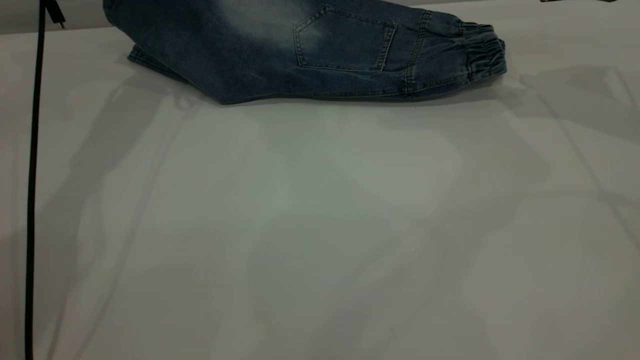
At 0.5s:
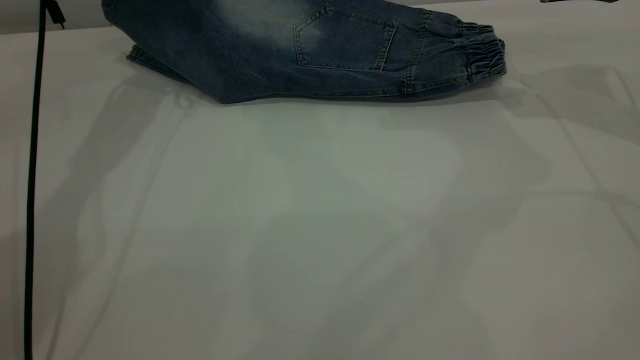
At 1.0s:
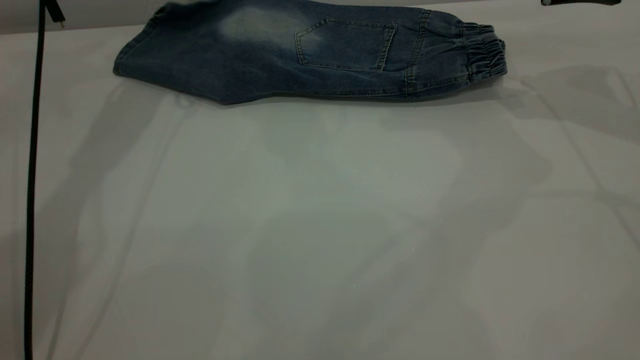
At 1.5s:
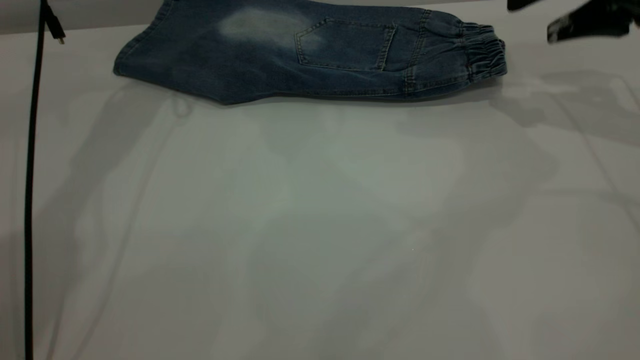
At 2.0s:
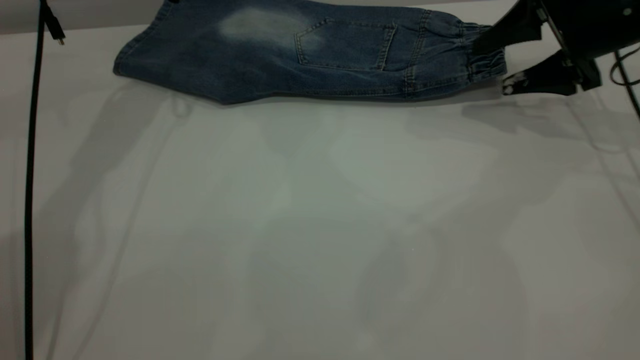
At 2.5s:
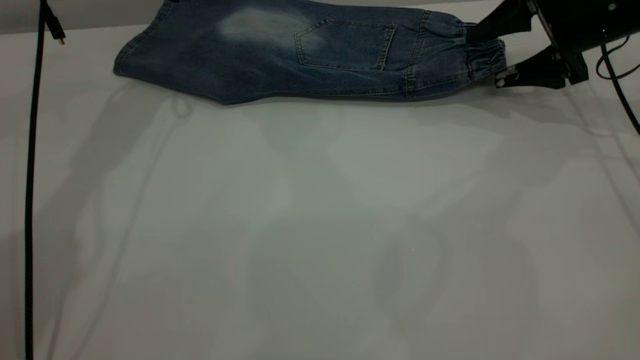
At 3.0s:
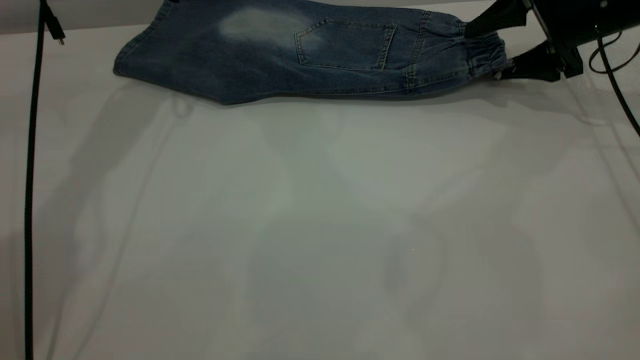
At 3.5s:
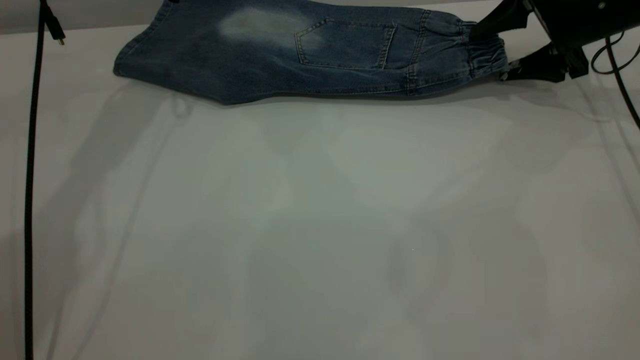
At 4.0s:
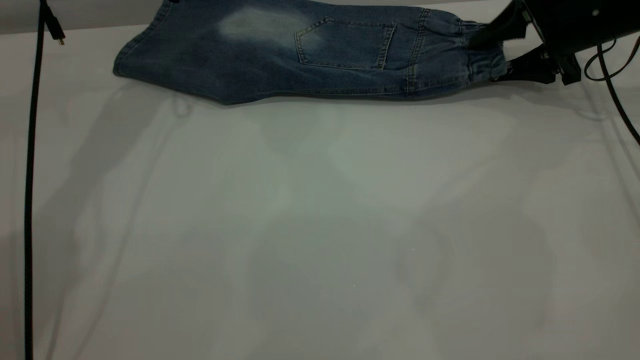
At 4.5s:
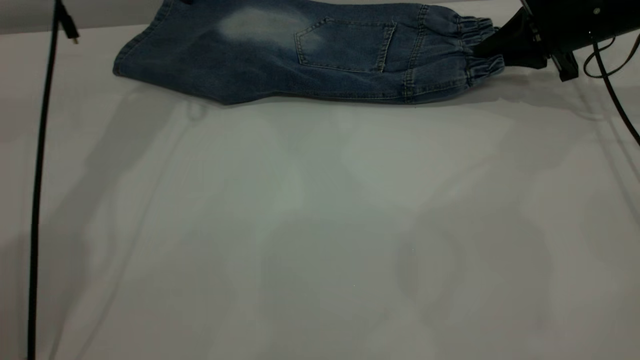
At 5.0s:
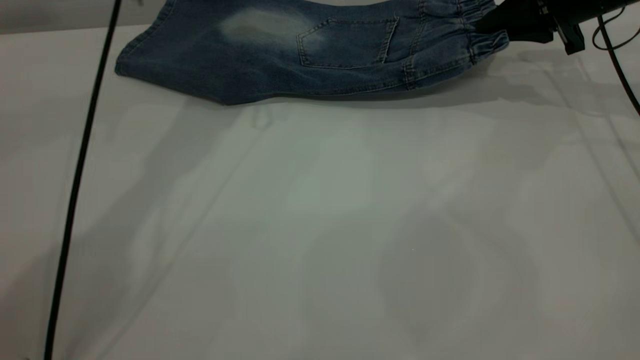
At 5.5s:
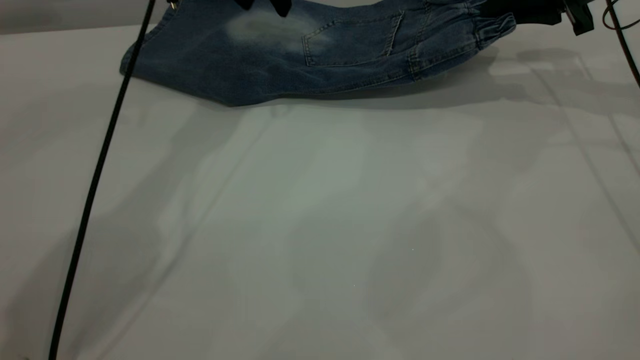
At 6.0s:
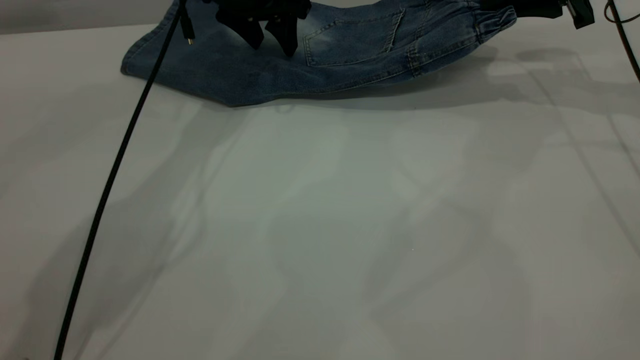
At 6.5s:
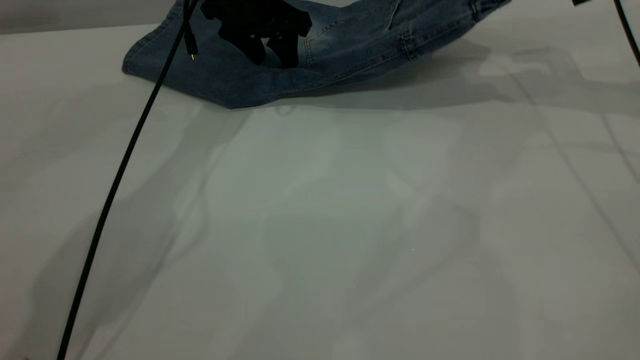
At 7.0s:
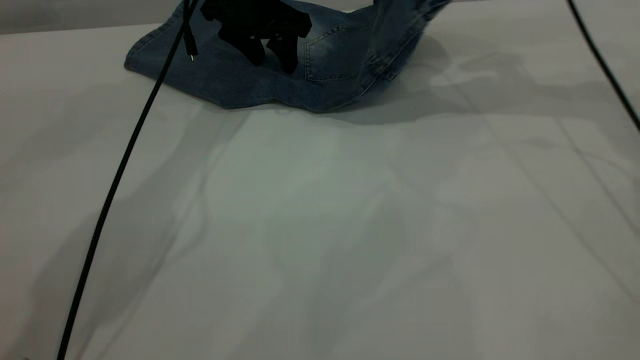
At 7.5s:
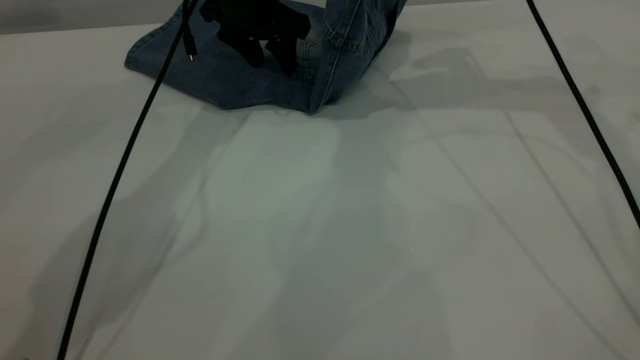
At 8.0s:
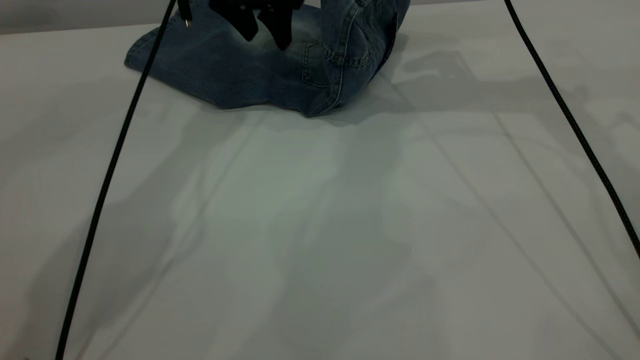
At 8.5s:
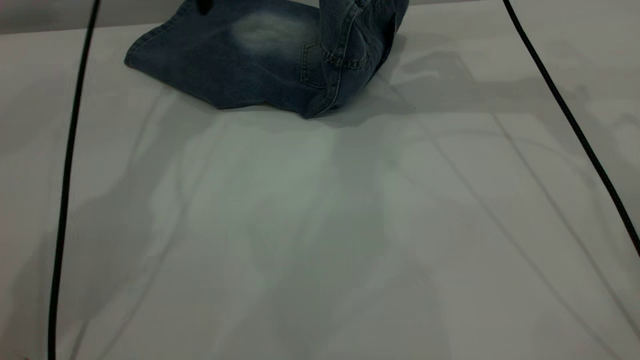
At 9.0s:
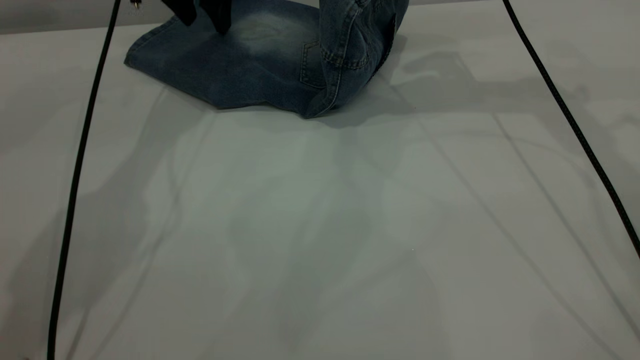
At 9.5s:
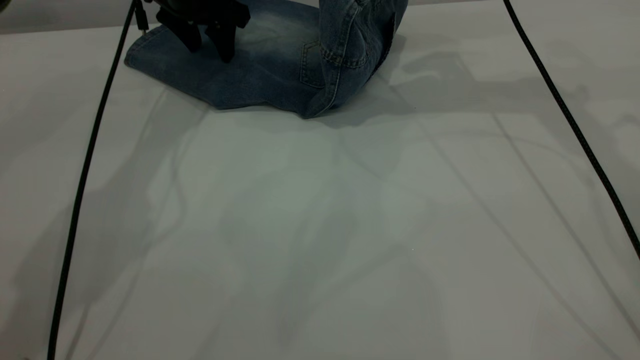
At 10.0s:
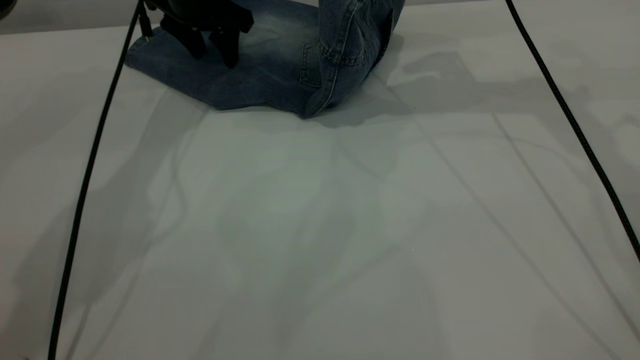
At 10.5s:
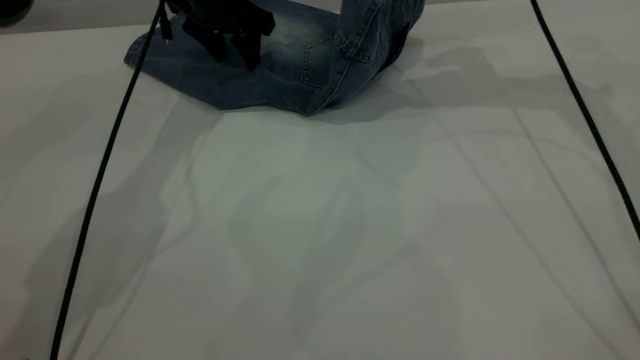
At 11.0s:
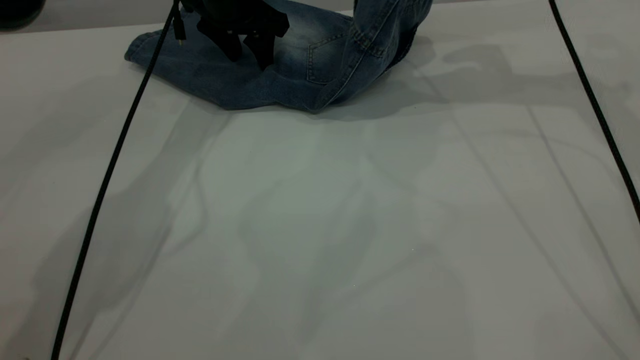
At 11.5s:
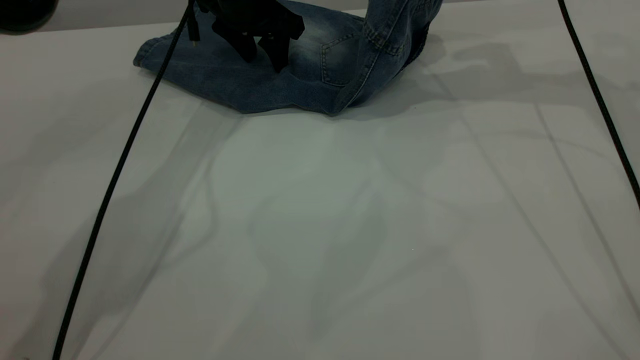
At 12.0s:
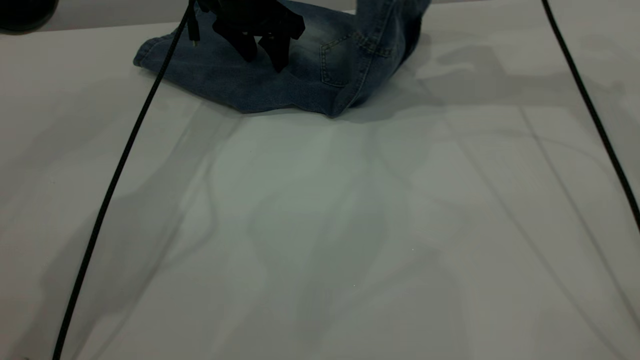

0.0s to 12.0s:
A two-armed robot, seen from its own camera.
0.0s to 2.0s: The left gripper opens; the right gripper shifts approximately 10 cm downward.
2.0s to 4.0s: The right gripper heads forward, covering about 5 cm.
4.0s to 6.0s: The right gripper moves upward, about 5 cm, and closes up. The left gripper moves to the right, roughly 15 cm.
6.0s to 8.0s: The right gripper goes approximately 15 cm to the left and upward.
8.0s to 10.0s: The left gripper moves to the left, roughly 5 cm.
10.0s to 12.0s: The left gripper heads to the right, covering approximately 5 cm.

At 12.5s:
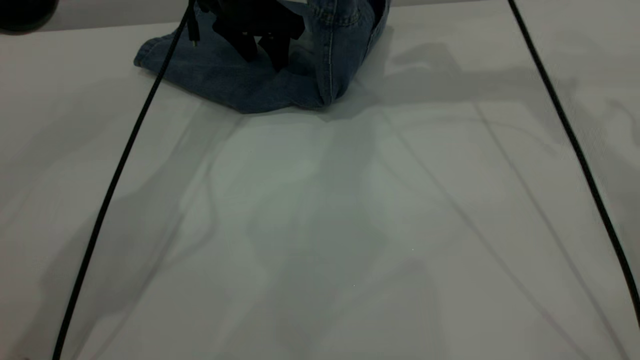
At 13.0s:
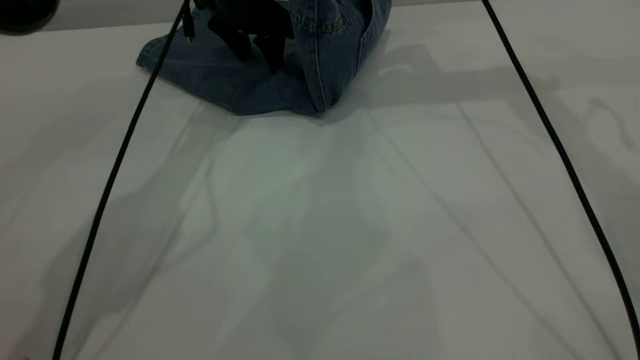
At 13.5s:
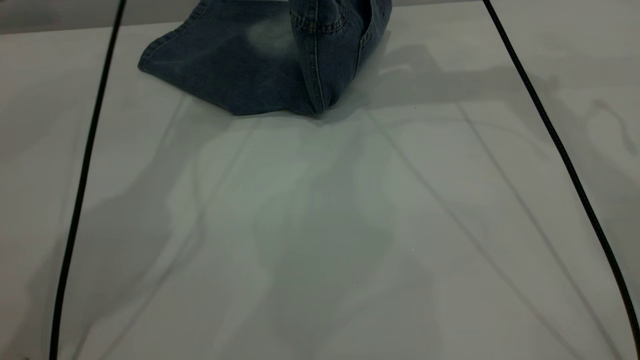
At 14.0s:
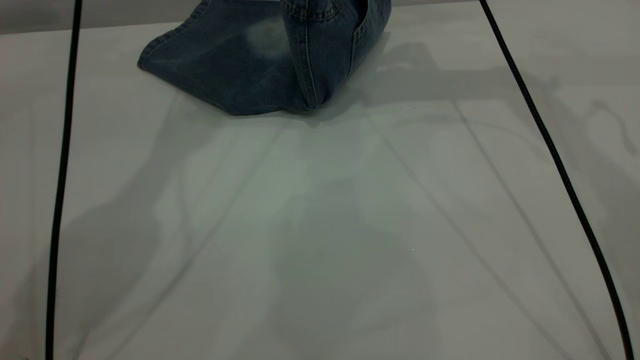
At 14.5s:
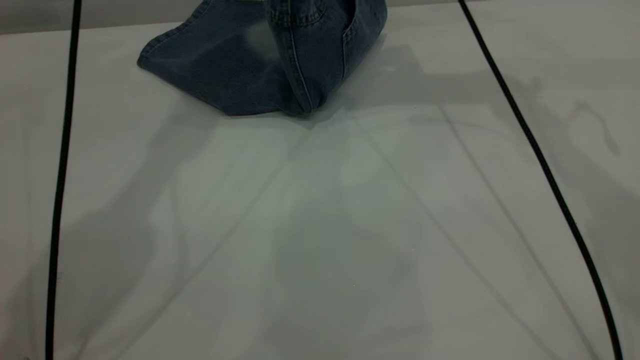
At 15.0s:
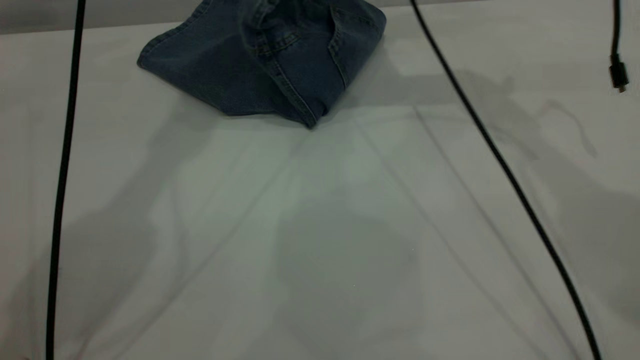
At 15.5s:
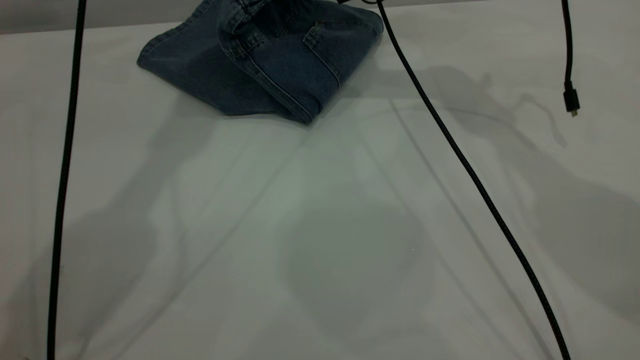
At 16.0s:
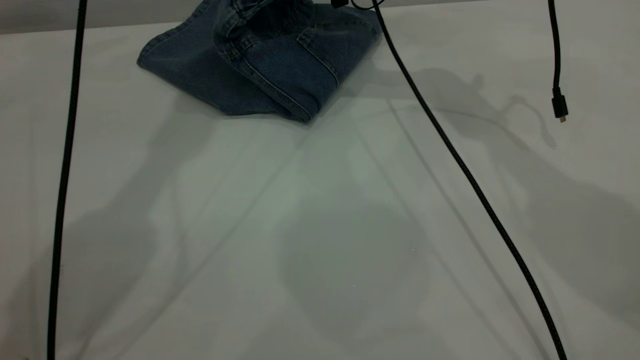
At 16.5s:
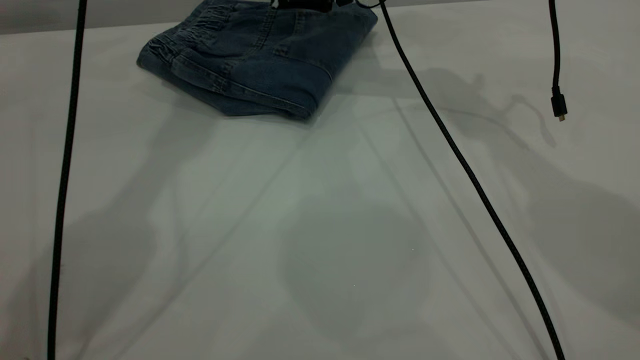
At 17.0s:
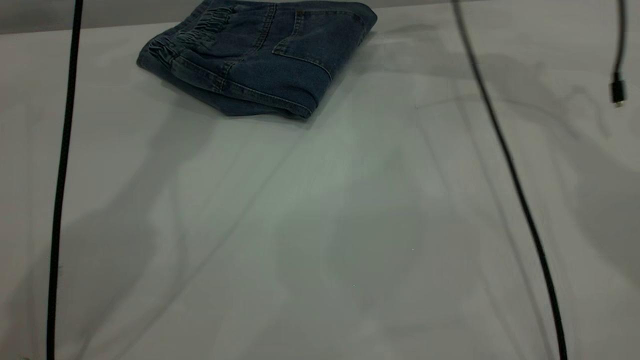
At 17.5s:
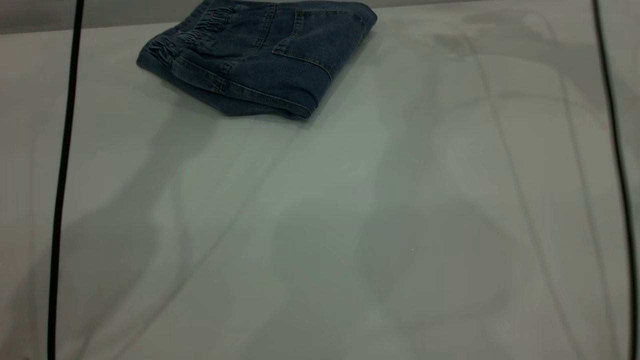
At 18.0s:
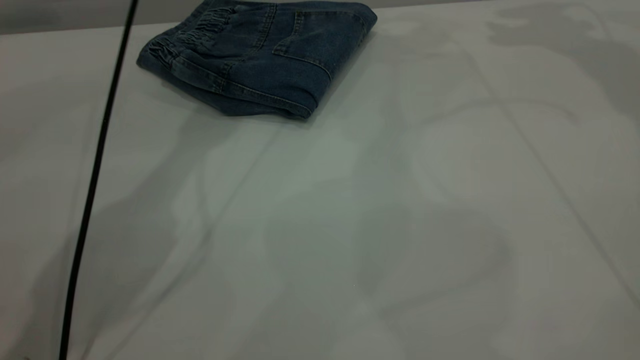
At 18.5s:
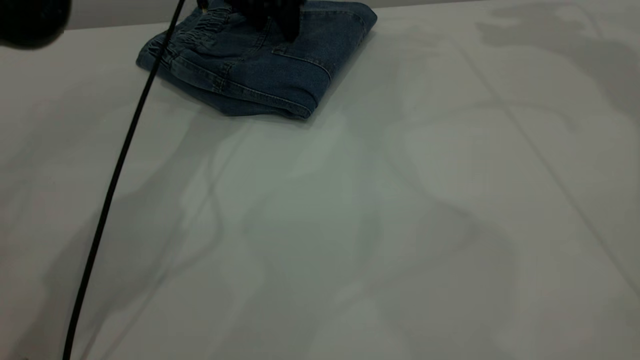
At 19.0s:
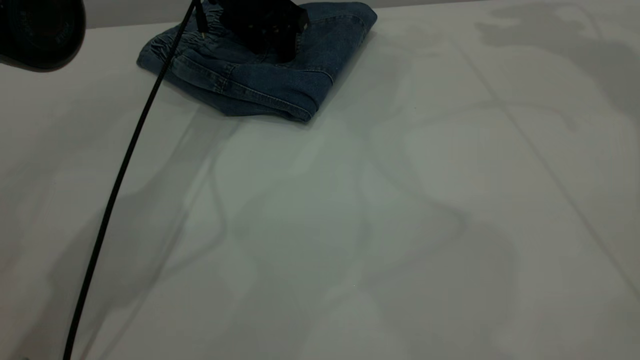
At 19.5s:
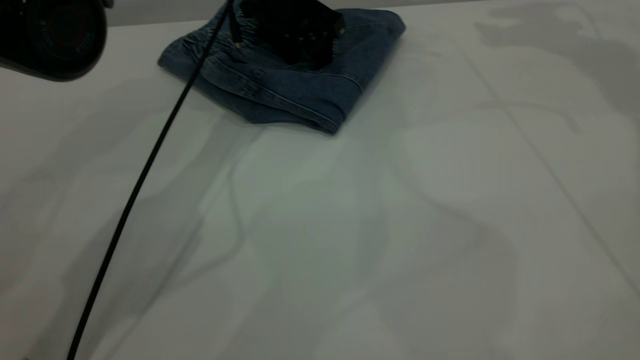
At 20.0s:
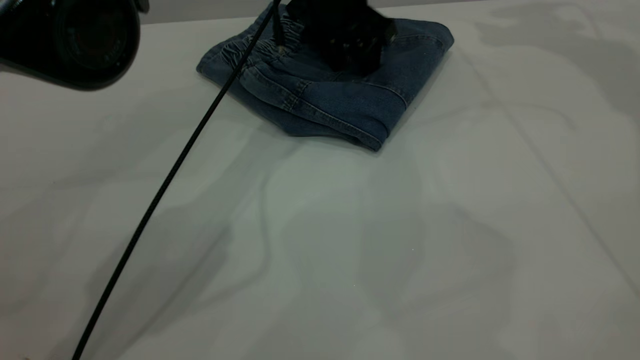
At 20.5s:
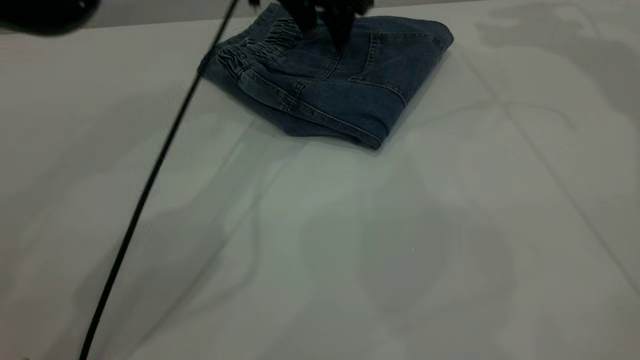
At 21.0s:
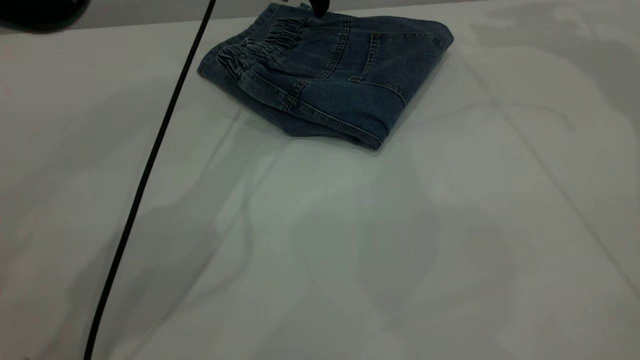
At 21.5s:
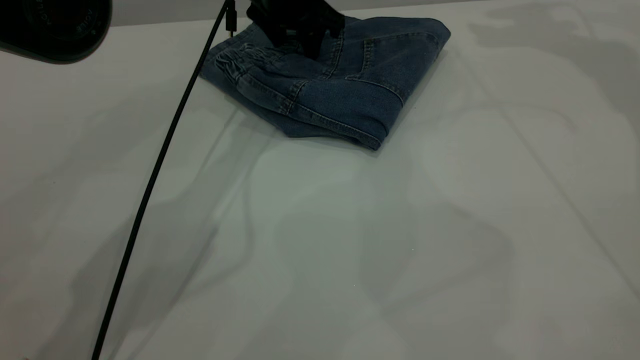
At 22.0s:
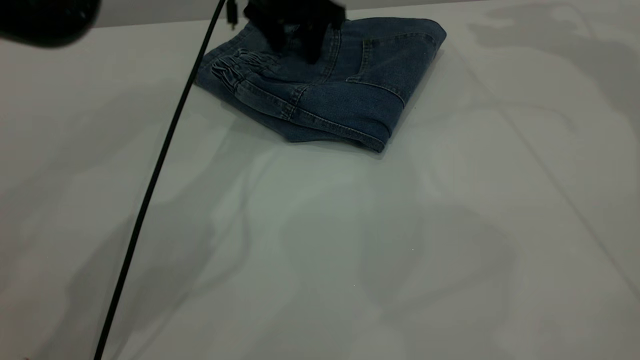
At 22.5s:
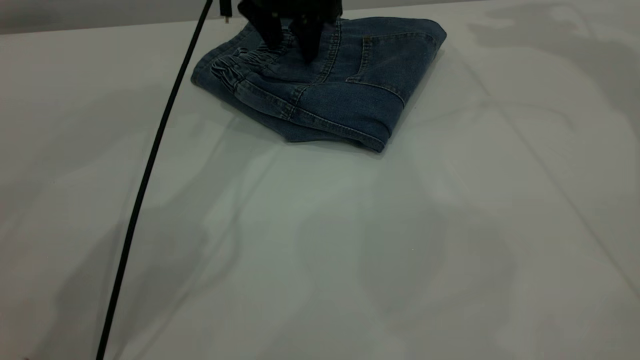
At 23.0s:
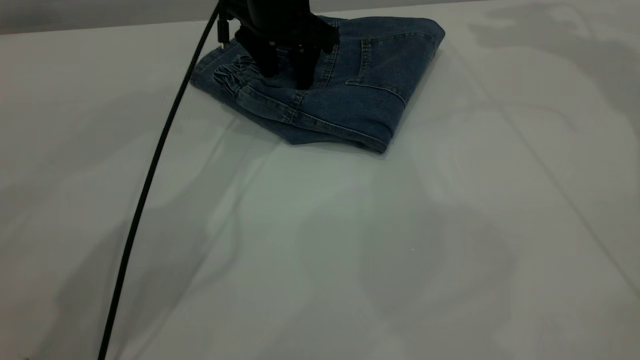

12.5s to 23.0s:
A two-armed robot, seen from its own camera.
Step, 12.5s to 17.0s: Fold your pants from right to left.
12.5s to 14.5s: The left gripper is displaced upward by approximately 25 cm.
14.5s to 16.5s: The right gripper moves downward and to the left, roughly 10 cm, and opens up.
16.5s to 19.0s: The left gripper travels downward by some 25 cm. Meanwhile the right gripper travels to the right and upward by about 30 cm.
19.0s to 21.0s: The left gripper travels to the right by approximately 5 cm.
21.0s to 23.0s: The left gripper changes place by roughly 5 cm.
